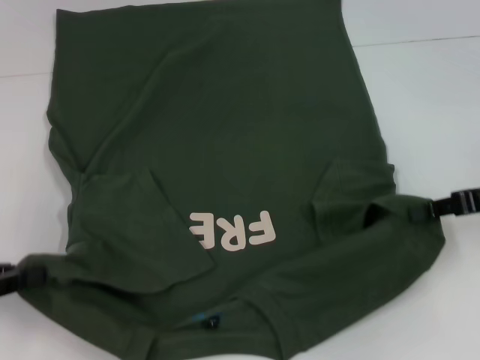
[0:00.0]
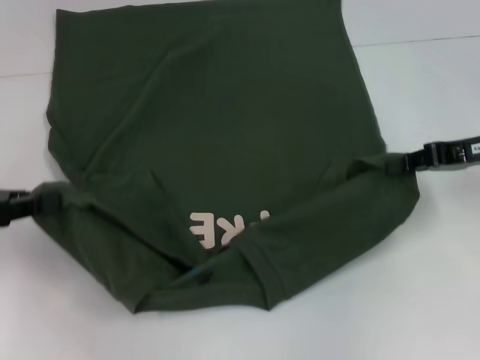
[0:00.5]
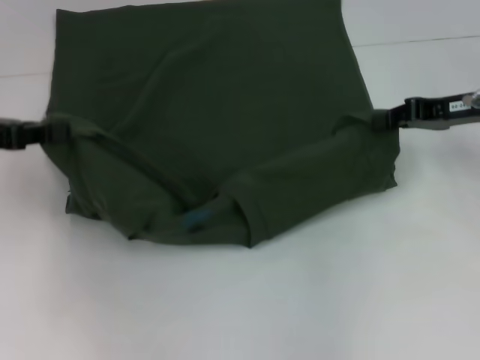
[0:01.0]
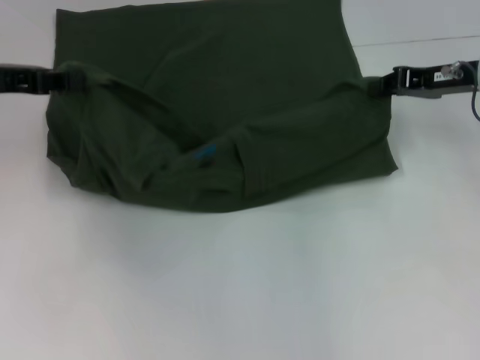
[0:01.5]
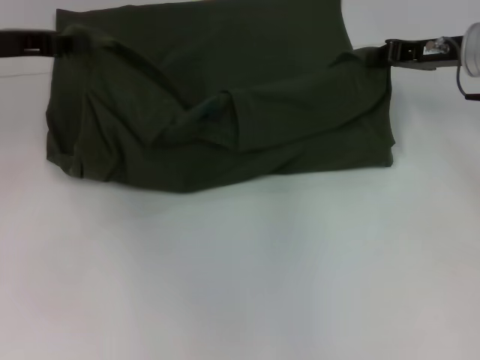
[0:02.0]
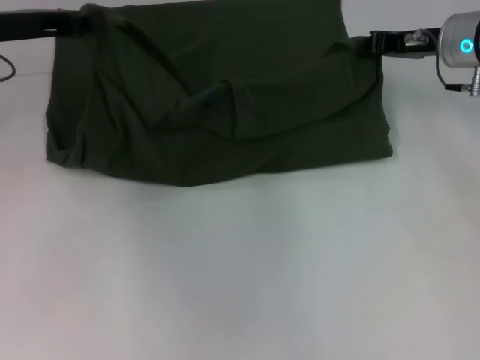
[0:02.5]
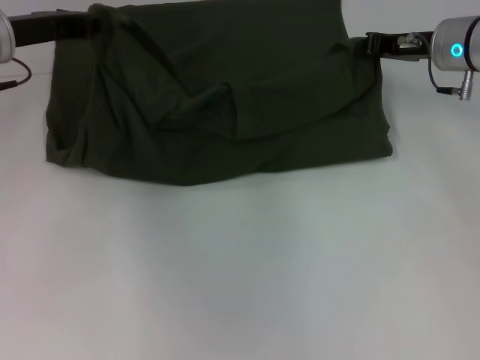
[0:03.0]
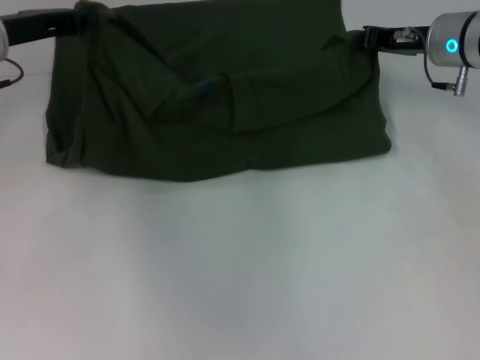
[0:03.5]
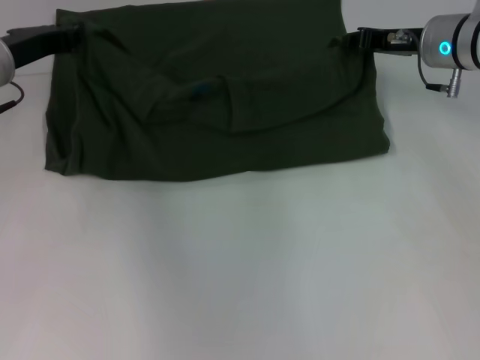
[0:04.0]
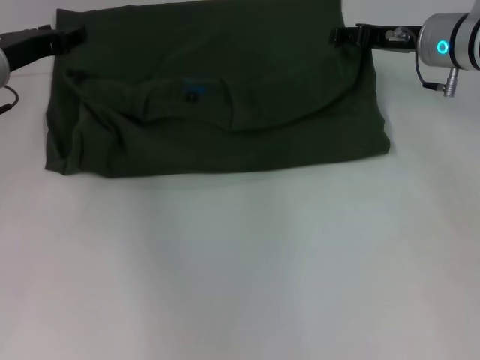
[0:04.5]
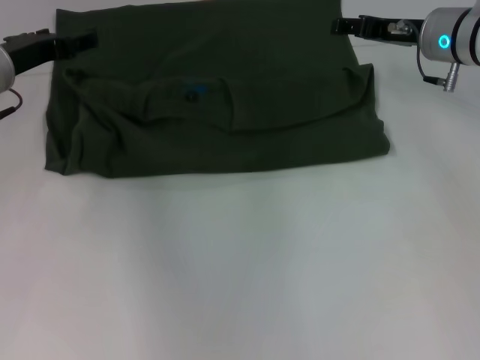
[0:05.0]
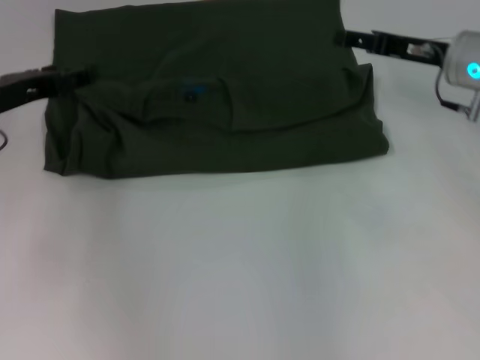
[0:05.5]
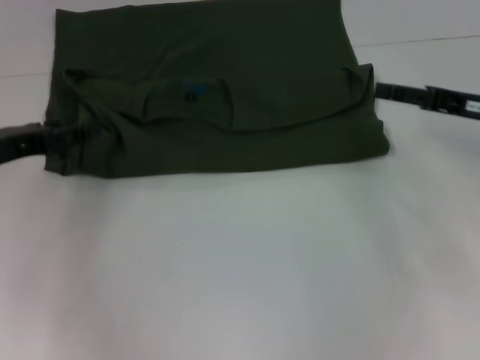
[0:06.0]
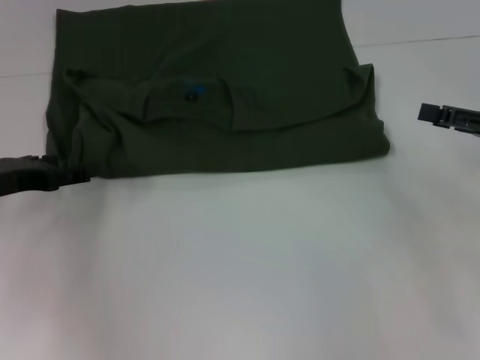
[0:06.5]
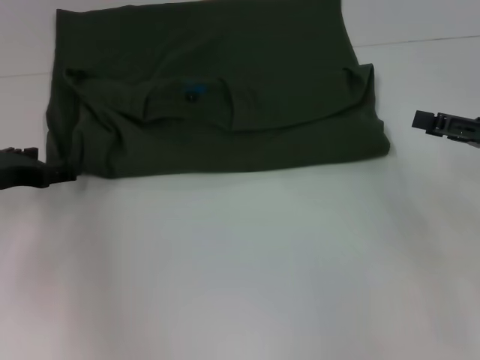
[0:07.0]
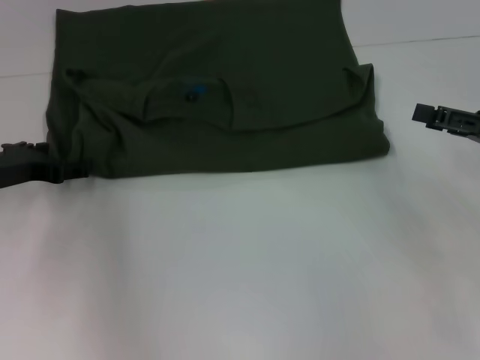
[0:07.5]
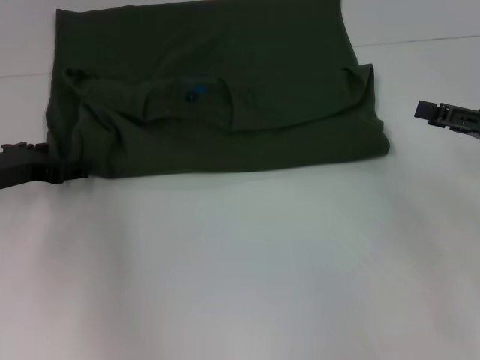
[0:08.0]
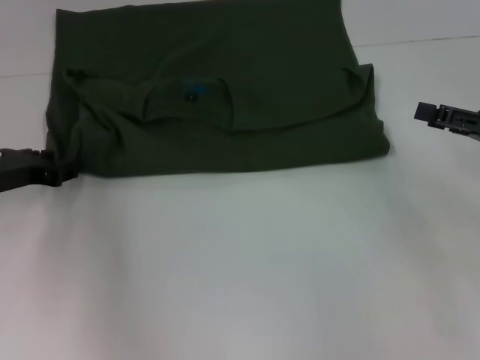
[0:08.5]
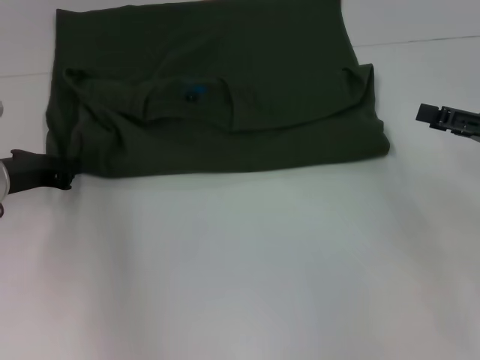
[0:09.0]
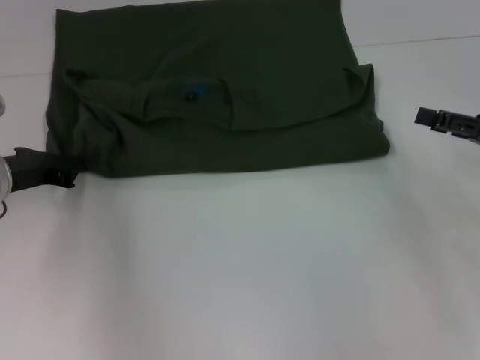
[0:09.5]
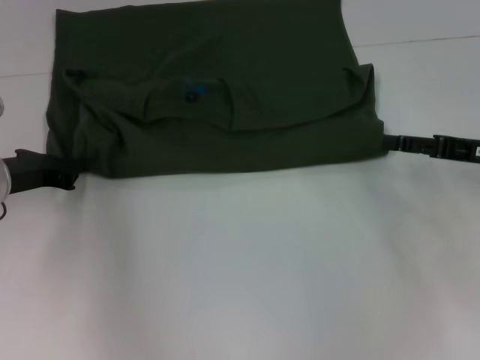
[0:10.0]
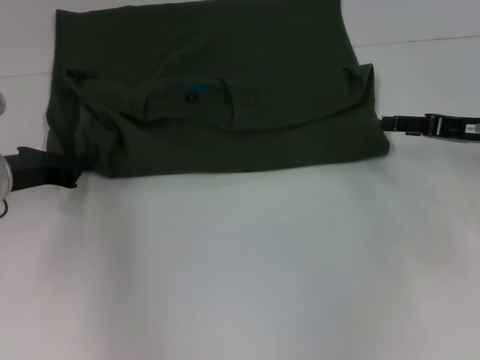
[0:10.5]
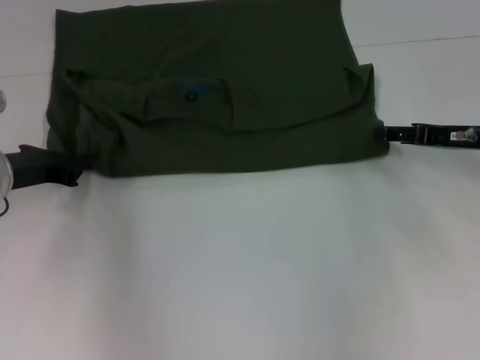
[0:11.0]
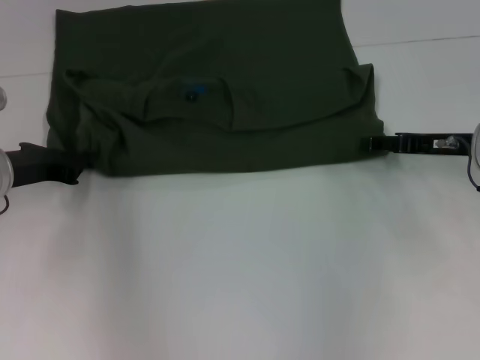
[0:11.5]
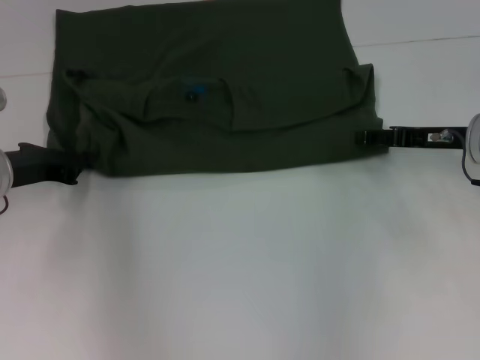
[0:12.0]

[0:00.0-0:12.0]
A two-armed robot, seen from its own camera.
Step, 0:00.0 to 0:06.0: Fold the clothes with your left hand.
Step, 0:00.0 to 0:06.0: Fold the clothes with your right hand.
0:00.0 to 0:02.0: The right gripper travels forward and to the left by some 15 cm, while the left gripper goes about 20 cm forward, upward and to the right.
0:02.0 to 0:04.0: The left gripper ends up some 5 cm from where it was.
0:04.0 to 0:06.0: The right gripper heads backward and to the right, covering approximately 15 cm, and opens up; the left gripper moves backward, some 10 cm, and opens.
0:06.0 to 0:08.0: The right gripper heads backward, covering about 5 cm.
0:08.0 to 0:10.0: The left gripper closes up.
0:10.0 to 0:12.0: The right gripper goes about 5 cm forward.

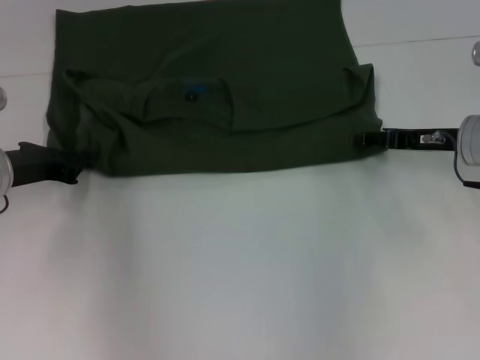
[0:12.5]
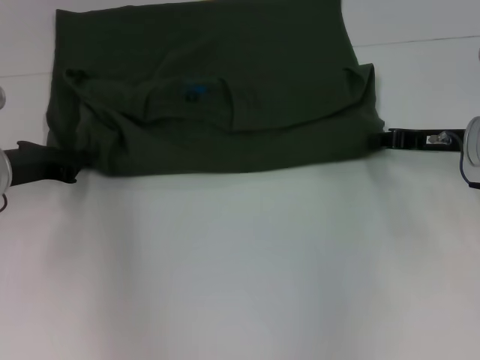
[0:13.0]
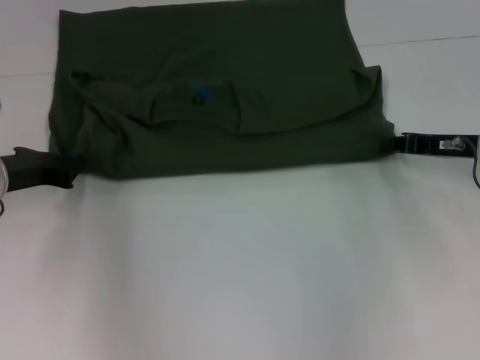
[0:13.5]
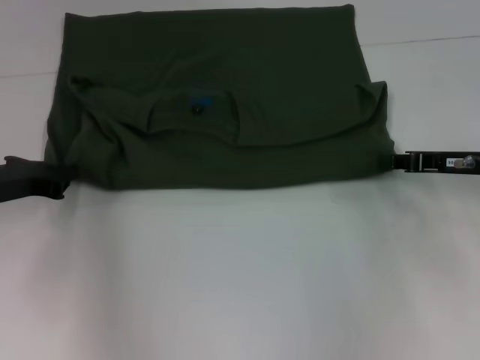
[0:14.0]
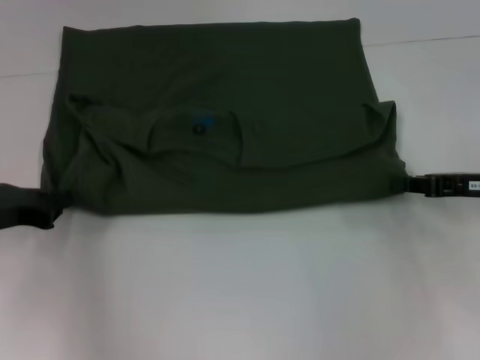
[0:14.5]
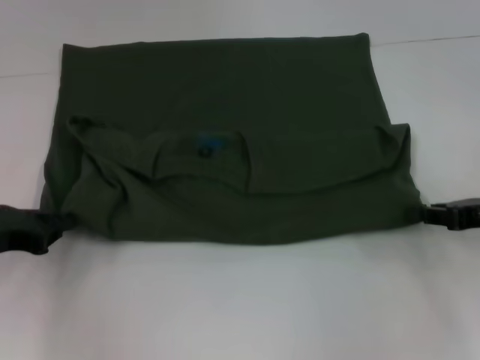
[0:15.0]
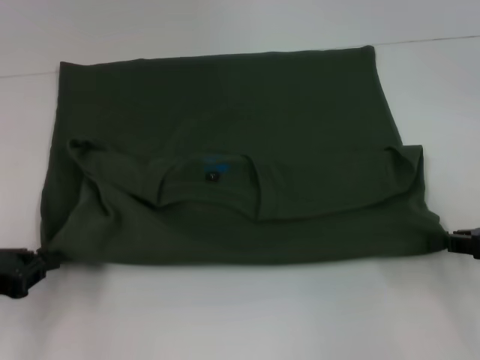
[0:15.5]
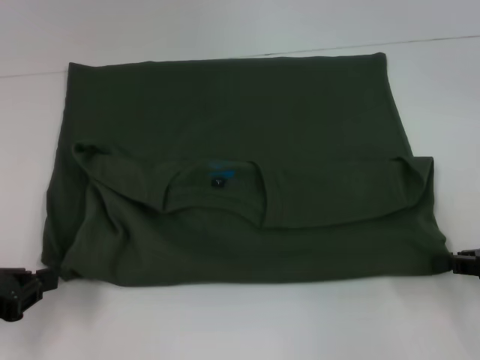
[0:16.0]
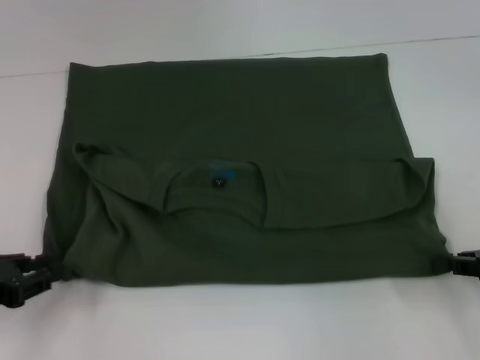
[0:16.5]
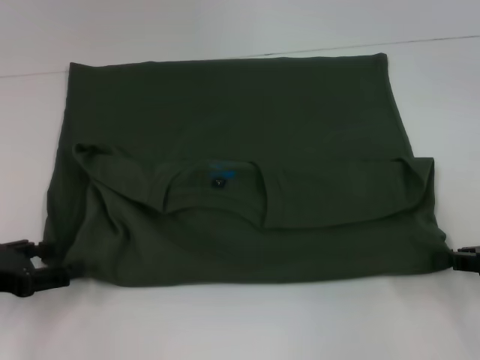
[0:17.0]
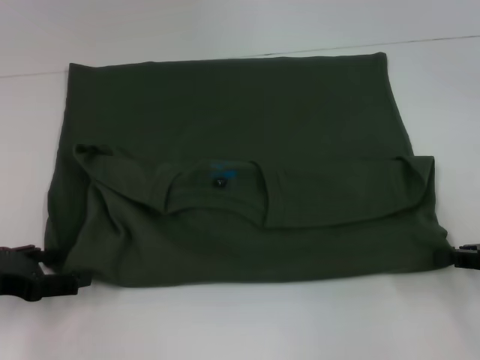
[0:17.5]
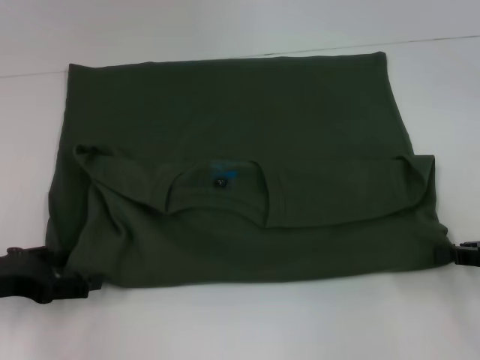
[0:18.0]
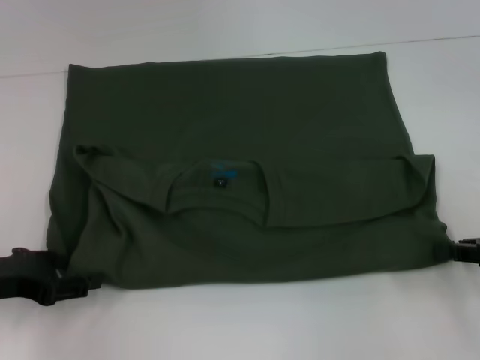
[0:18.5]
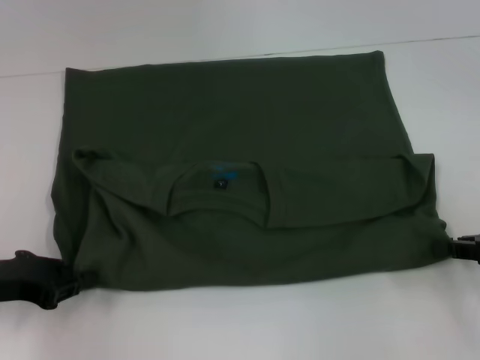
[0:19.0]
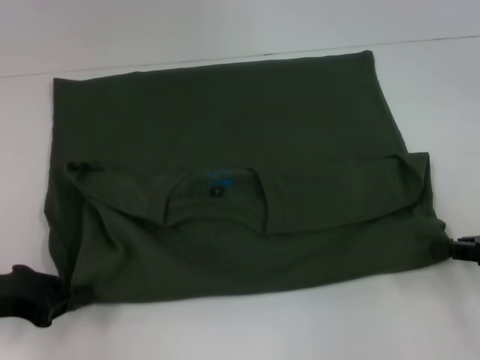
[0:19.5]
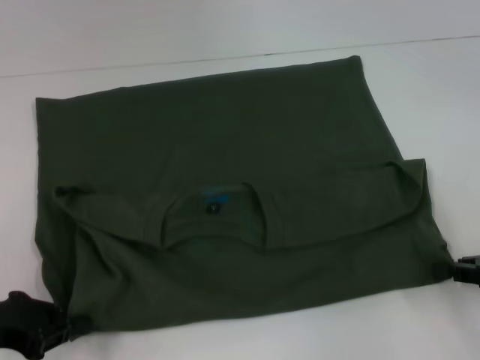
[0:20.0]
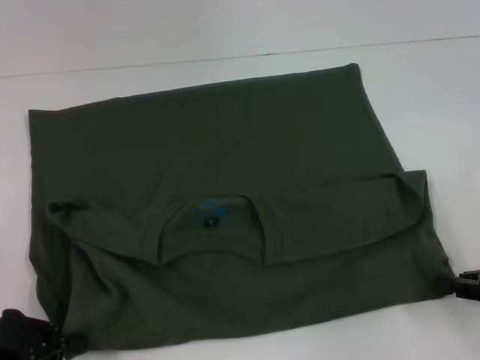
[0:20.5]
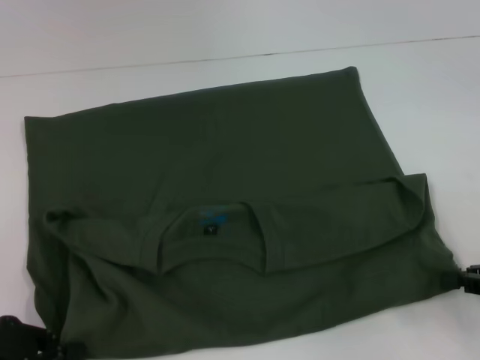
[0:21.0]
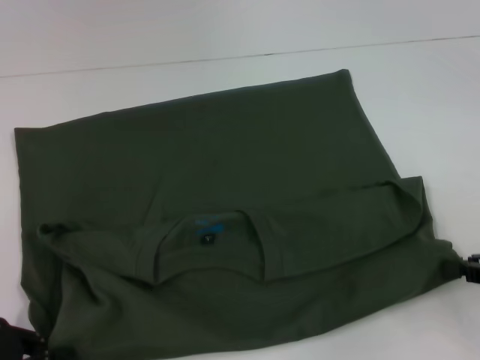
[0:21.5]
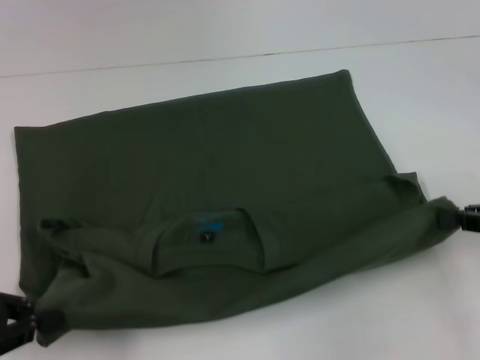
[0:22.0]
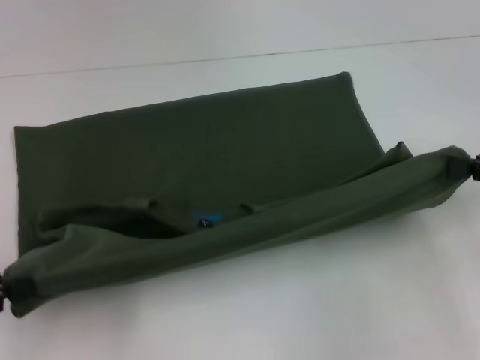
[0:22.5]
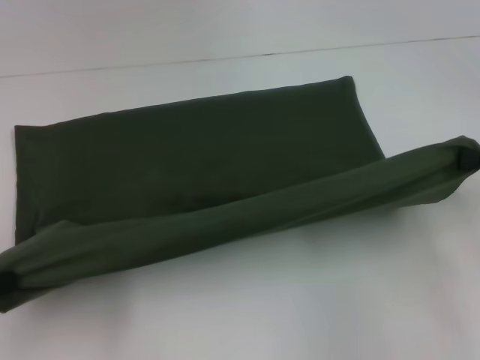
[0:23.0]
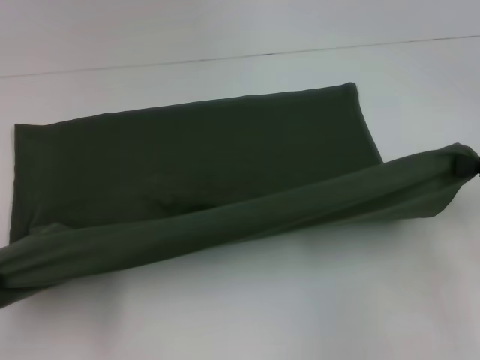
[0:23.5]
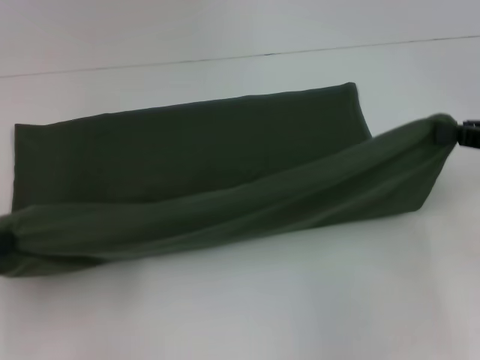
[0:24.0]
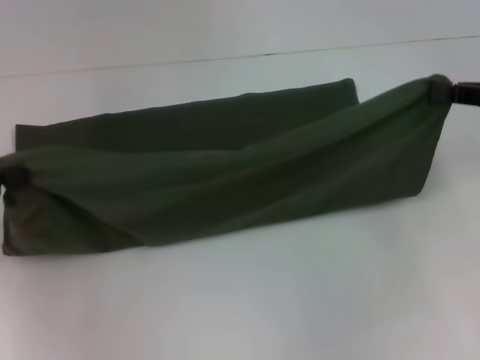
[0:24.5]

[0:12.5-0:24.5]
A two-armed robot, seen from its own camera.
Step, 0:12.5 to 0:16.0: Pull the clothes with your left hand.
Step, 0:12.5 to 0:16.0: Pull the clothes with your right hand.
0:12.5 to 0:14.5: The grippers both shift backward by approximately 5 cm. The right gripper closes up.
0:14.5 to 0:16.5: The grippers both shift backward by some 5 cm.
0:16.5 to 0:18.5: The left gripper opens.
0:18.5 to 0:20.5: The left gripper moves backward, roughly 5 cm, and closes its fingers.
0:20.5 to 0:22.5: The grippers both shift upward by about 5 cm.
0:22.5 to 0:24.5: The grippers both shift forward by about 5 cm.

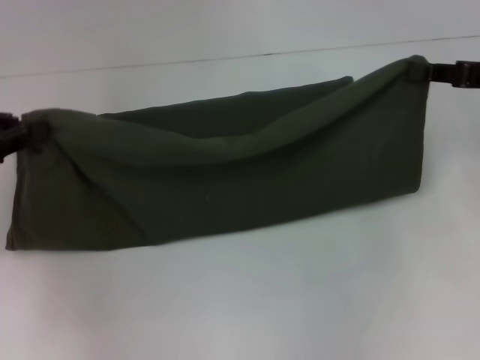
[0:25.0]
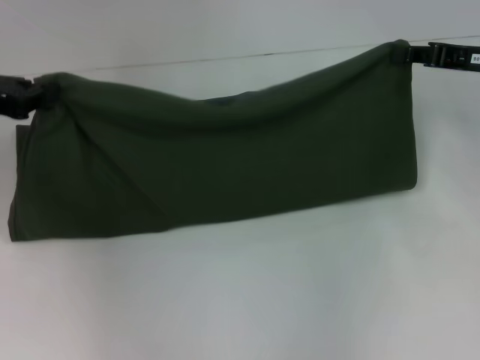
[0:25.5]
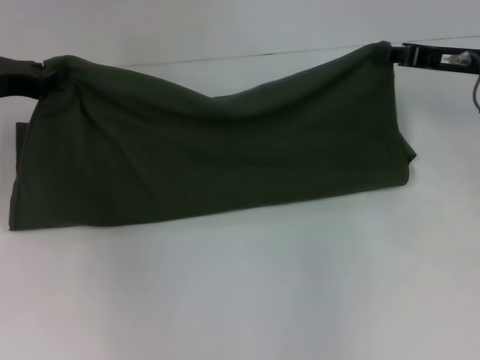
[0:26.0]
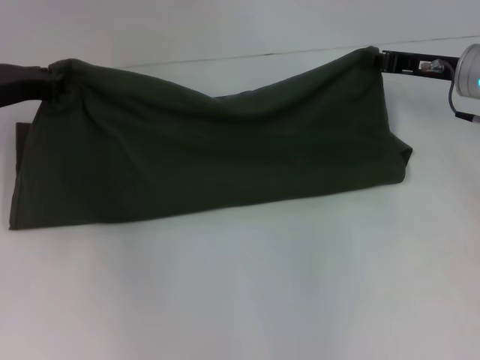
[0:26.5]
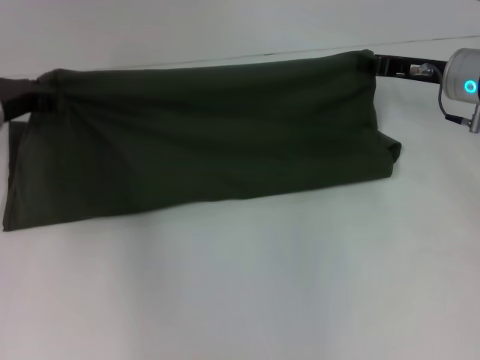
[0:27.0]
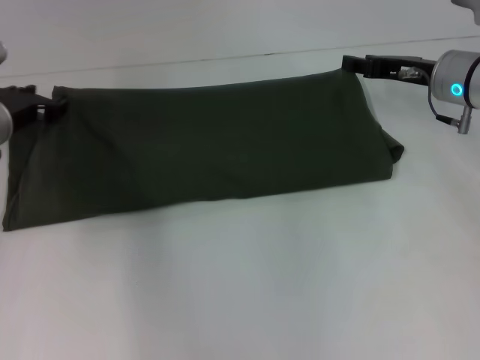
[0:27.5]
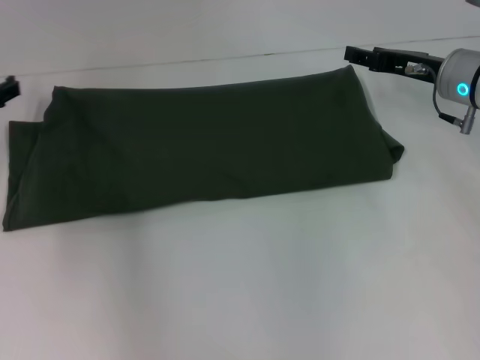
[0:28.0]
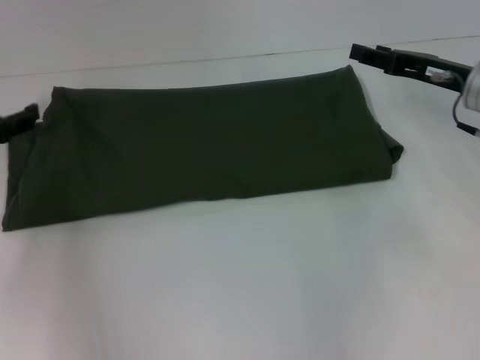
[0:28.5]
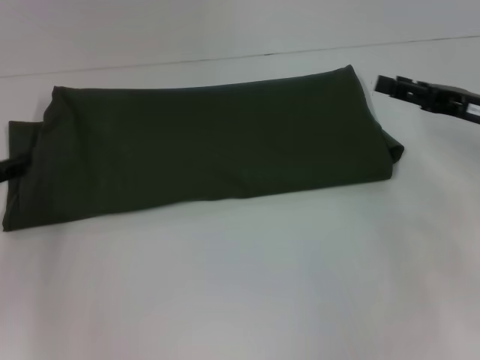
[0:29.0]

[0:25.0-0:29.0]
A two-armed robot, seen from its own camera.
Step, 0:25.0 to 0:28.0: Fold the clothes with your right hand.
0:25.0 to 0:27.0: The left gripper moves forward, downward and to the right, roughly 15 cm; the right gripper goes about 10 cm forward, to the left and downward.
0:27.0 to 0:29.0: The left gripper shifts approximately 15 cm backward and to the left, and opens up, while the right gripper moves backward, roughly 10 cm, and opens.
